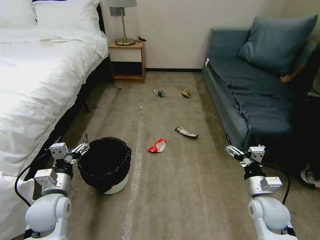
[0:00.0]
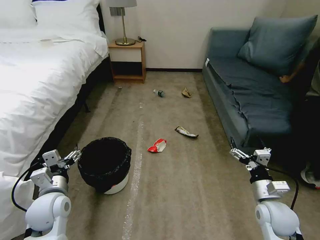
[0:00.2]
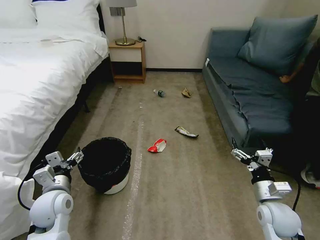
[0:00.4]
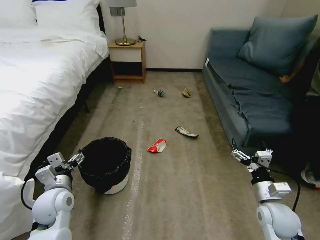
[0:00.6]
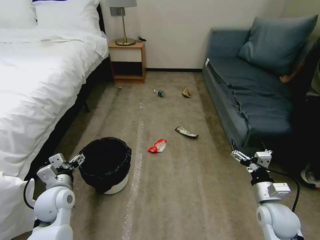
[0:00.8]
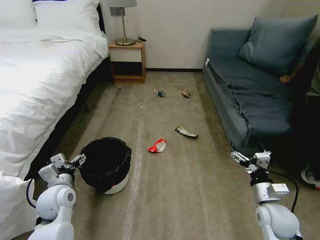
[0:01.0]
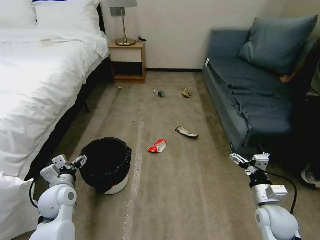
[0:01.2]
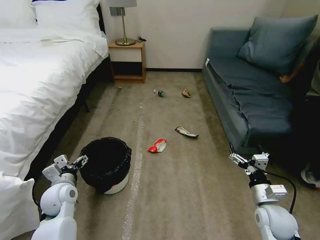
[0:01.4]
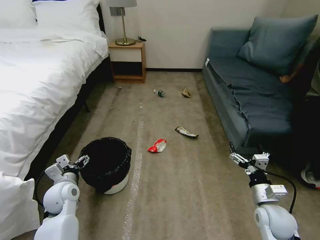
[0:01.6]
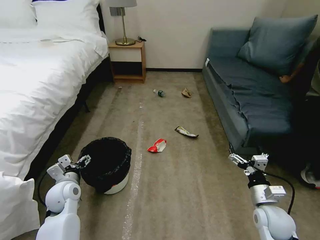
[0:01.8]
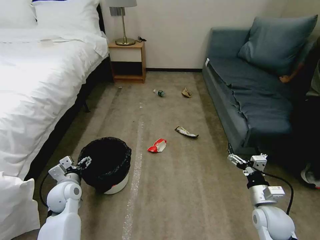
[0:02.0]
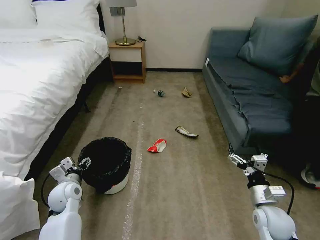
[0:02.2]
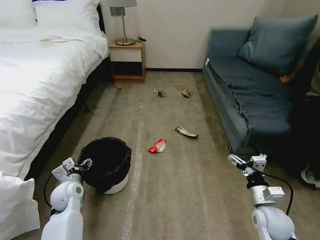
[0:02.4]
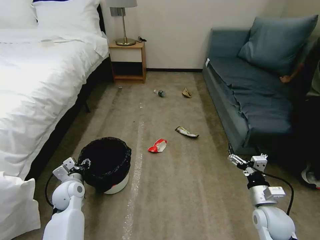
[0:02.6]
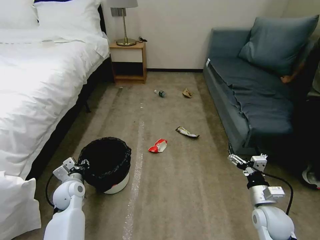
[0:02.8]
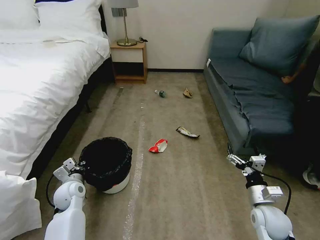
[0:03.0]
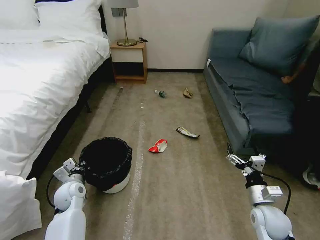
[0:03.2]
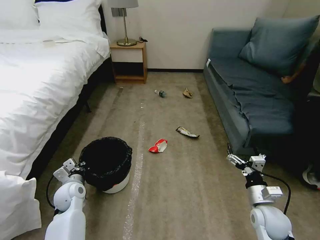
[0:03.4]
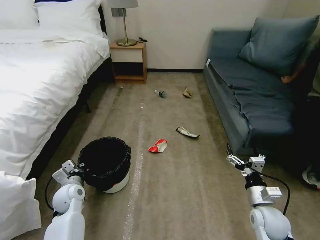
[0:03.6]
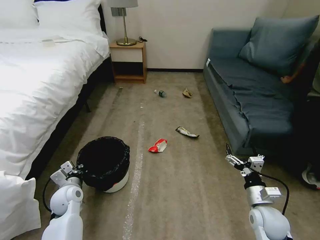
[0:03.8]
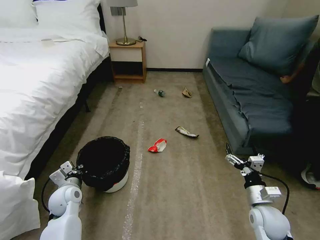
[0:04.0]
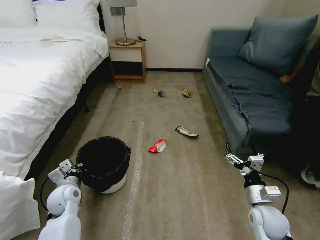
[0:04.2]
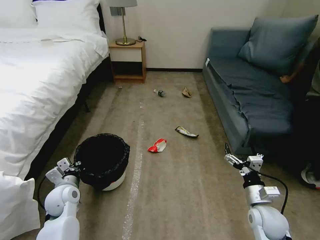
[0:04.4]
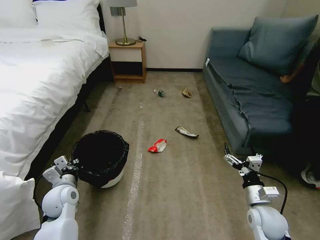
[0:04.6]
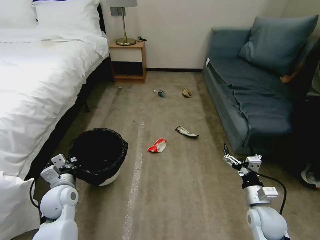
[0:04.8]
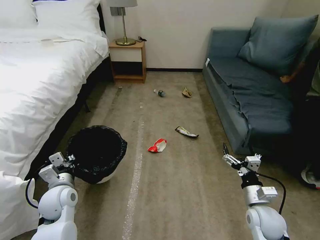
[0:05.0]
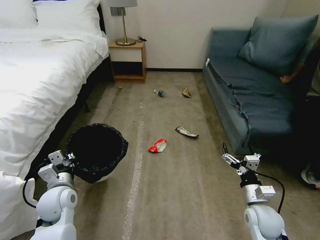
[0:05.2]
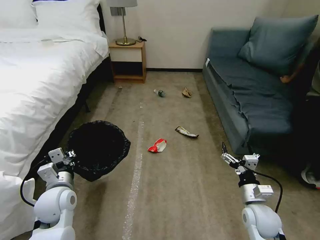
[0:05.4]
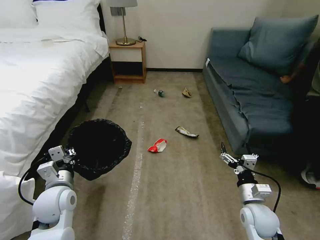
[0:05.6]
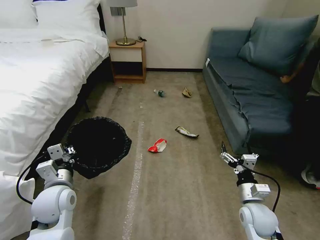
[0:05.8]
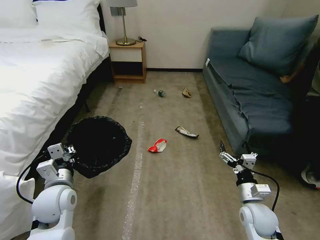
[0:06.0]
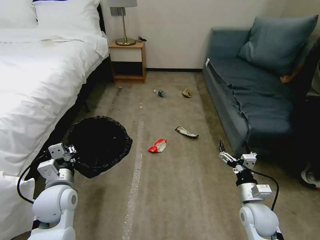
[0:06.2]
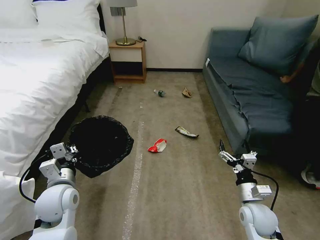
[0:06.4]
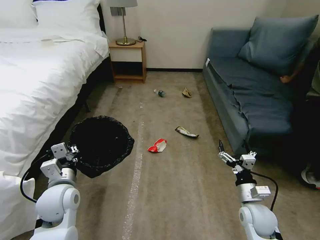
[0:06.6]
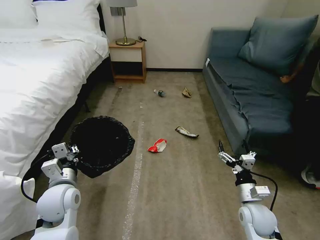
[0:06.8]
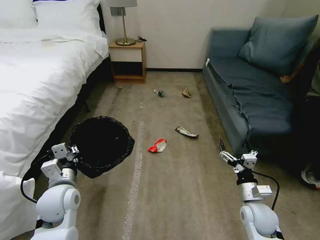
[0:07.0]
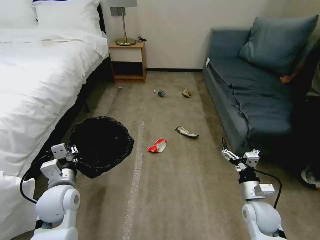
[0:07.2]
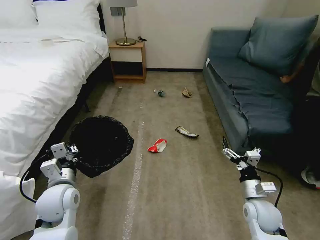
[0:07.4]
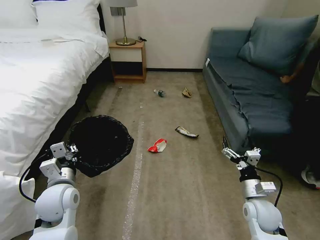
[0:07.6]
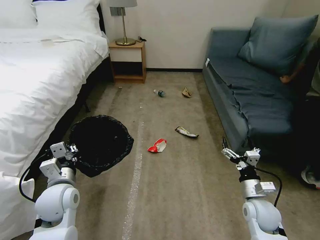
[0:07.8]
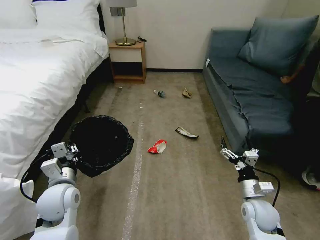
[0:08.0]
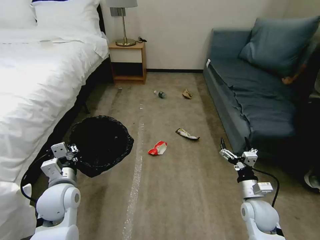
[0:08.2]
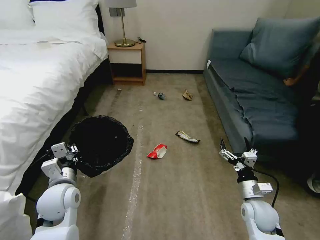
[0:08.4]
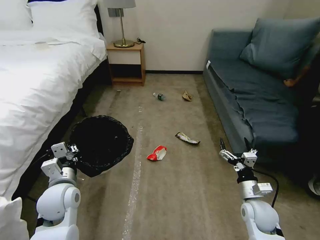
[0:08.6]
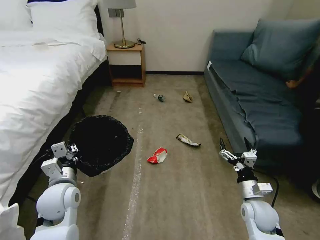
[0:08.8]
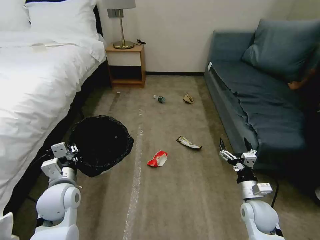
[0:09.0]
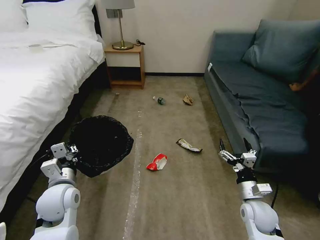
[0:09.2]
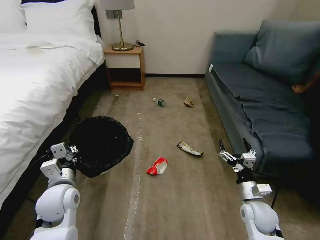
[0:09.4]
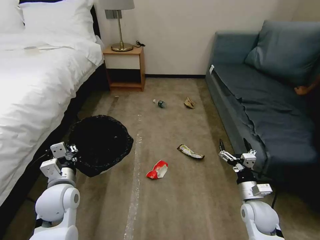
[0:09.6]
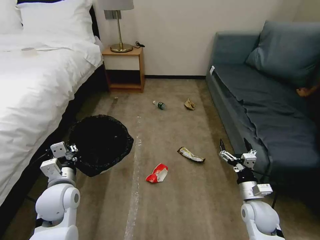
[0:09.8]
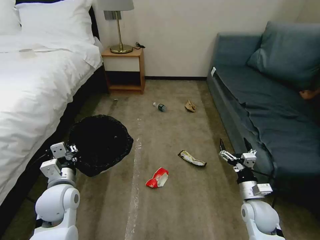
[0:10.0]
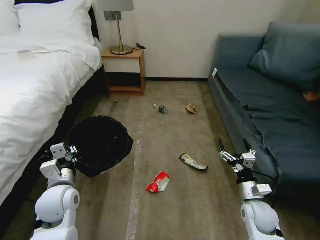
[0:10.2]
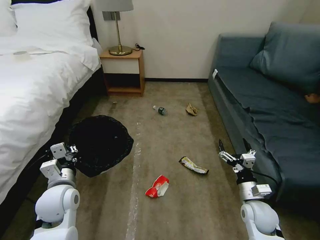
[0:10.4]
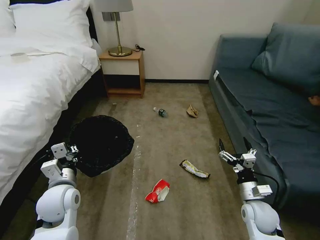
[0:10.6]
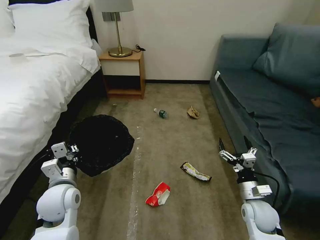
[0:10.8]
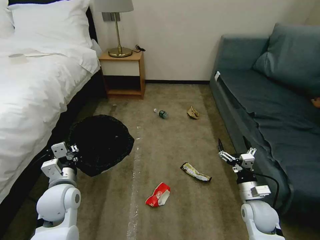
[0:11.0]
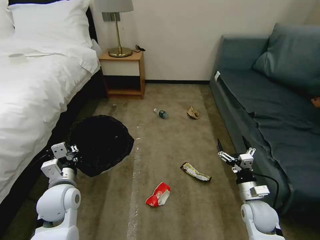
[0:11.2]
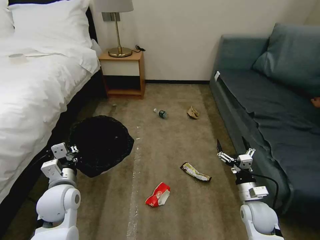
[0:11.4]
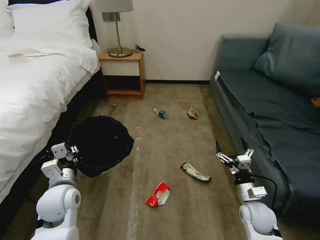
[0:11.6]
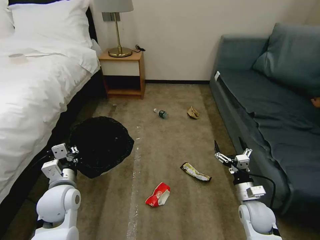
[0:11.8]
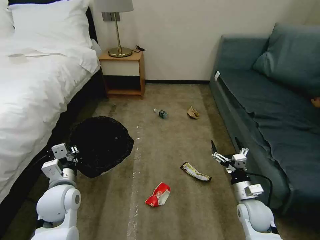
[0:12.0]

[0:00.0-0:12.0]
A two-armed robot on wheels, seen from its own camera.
Task of the whole recording: Pick up the trash bin, then pick up the garbage on the floor and place it into the trash bin.
0:01.6 to 0:03.0: The left gripper changes place by about 5 cm, and closes its fingers.
0:03.0 to 0:04.4: There are only small adjustments of the grippers.
0:04.4 to 0:06.0: The left gripper is displaced upward by some 10 cm.
0:06.0 to 0:07.6: The grippers stay close to where they were, moving slightly.
0:07.6 to 0:09.0: Both grippers stay put.
0:10.4 to 0:12.0: The grippers move only a little.

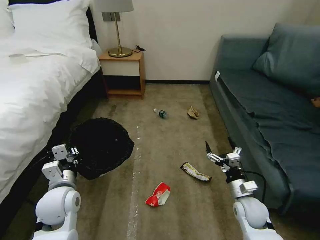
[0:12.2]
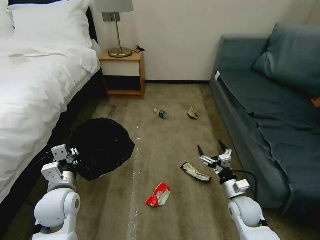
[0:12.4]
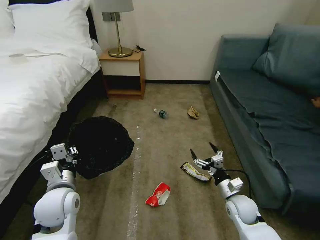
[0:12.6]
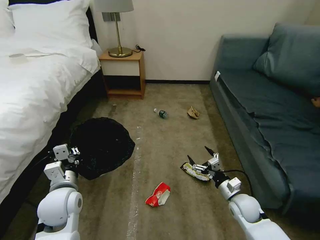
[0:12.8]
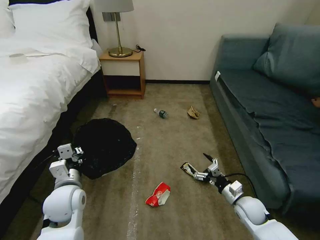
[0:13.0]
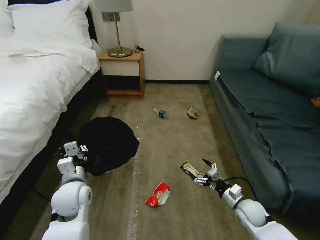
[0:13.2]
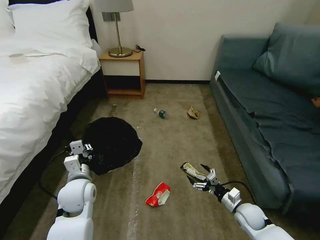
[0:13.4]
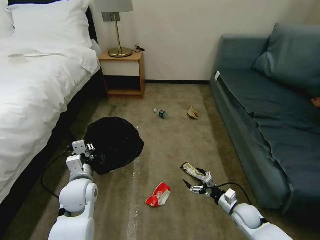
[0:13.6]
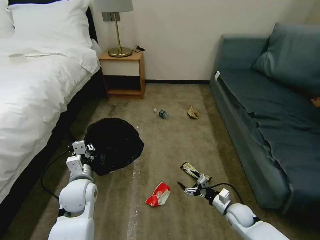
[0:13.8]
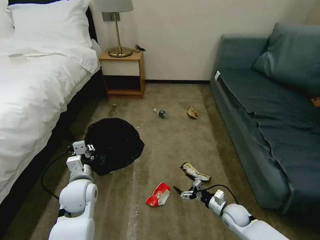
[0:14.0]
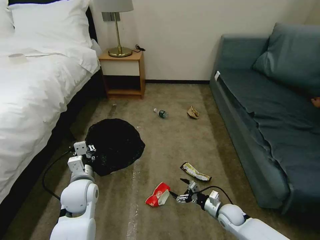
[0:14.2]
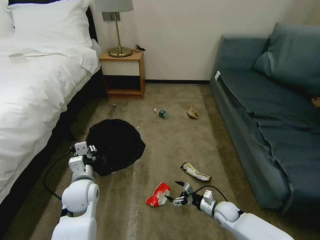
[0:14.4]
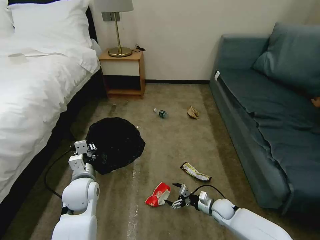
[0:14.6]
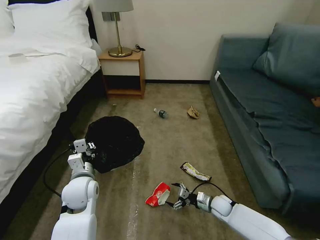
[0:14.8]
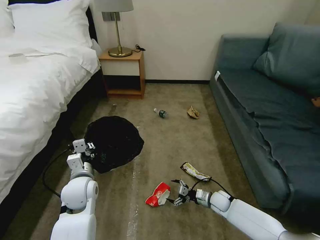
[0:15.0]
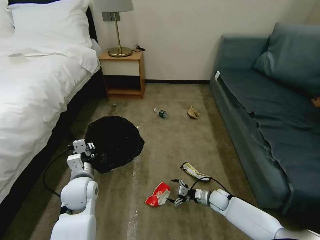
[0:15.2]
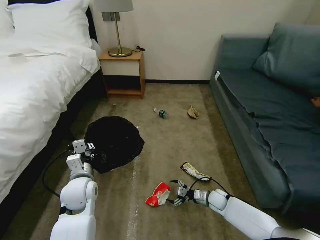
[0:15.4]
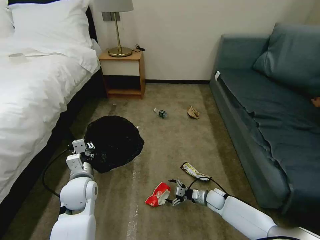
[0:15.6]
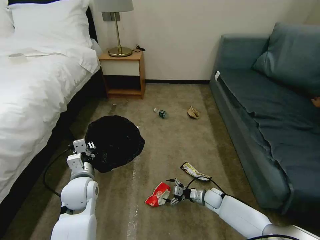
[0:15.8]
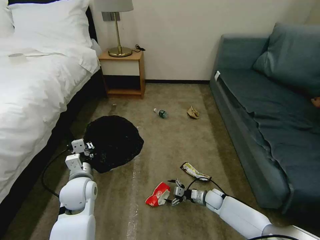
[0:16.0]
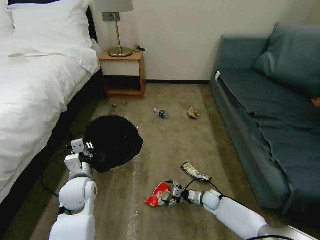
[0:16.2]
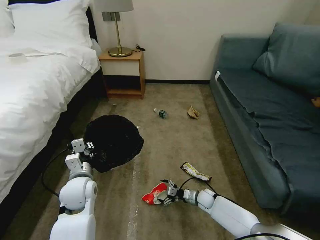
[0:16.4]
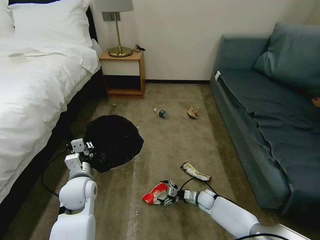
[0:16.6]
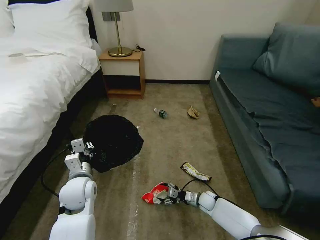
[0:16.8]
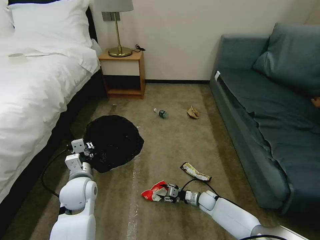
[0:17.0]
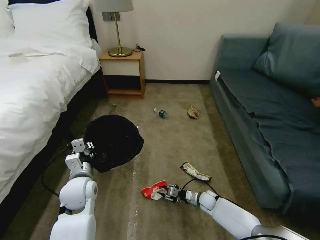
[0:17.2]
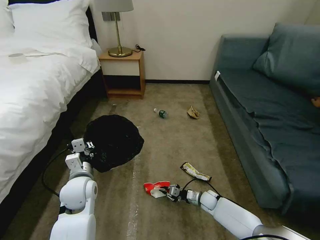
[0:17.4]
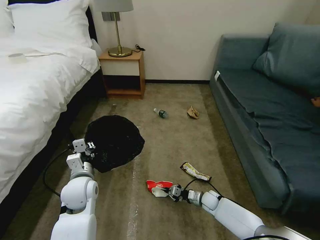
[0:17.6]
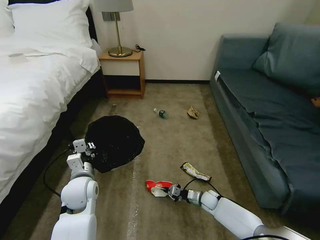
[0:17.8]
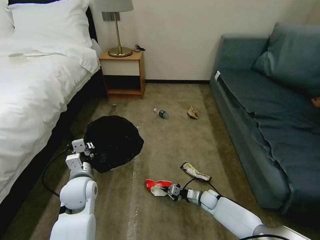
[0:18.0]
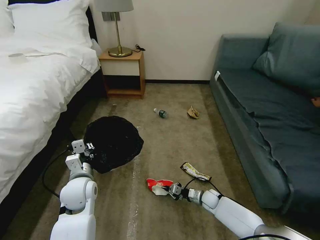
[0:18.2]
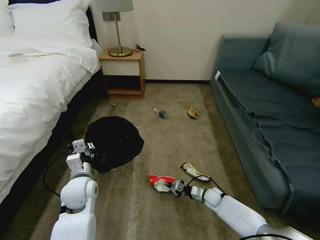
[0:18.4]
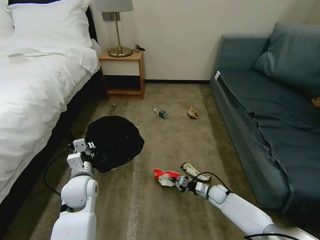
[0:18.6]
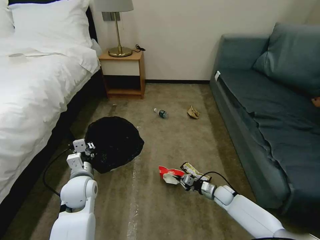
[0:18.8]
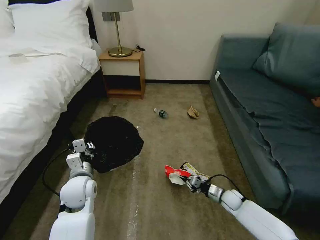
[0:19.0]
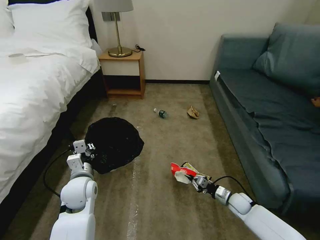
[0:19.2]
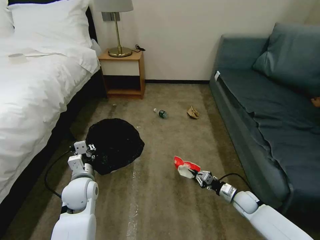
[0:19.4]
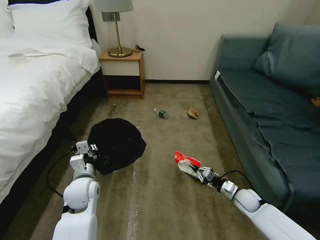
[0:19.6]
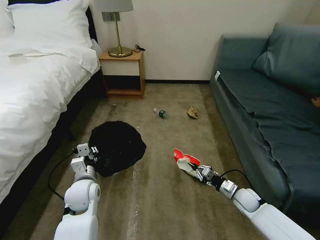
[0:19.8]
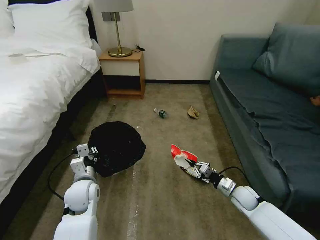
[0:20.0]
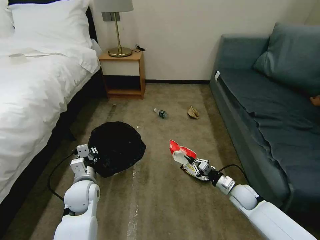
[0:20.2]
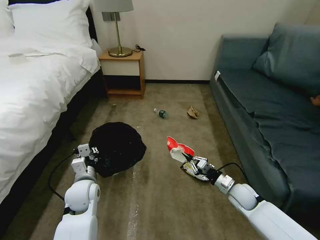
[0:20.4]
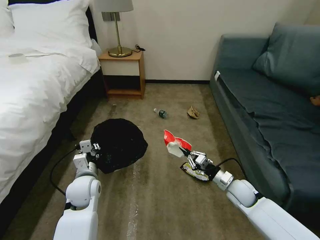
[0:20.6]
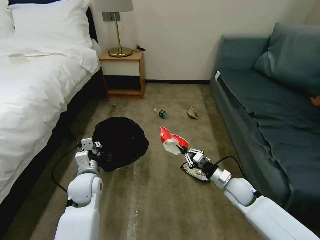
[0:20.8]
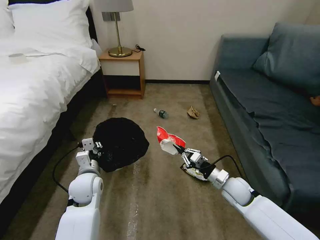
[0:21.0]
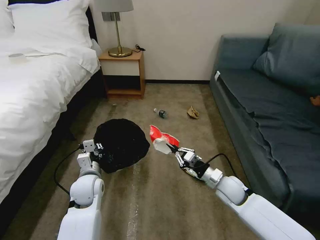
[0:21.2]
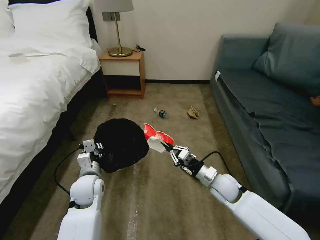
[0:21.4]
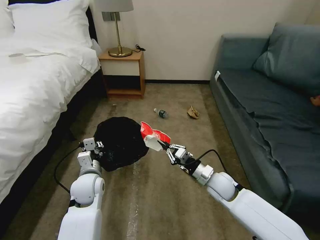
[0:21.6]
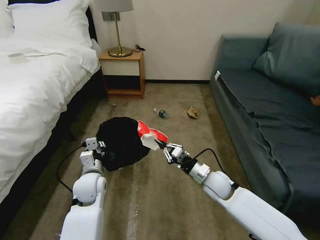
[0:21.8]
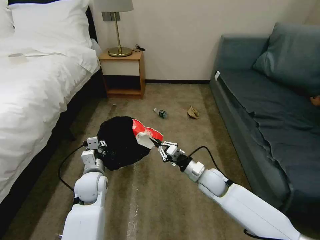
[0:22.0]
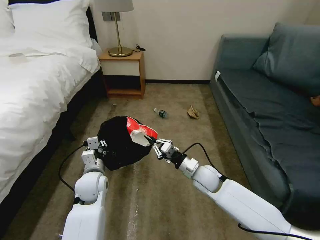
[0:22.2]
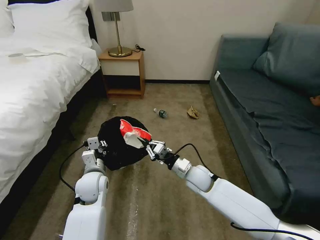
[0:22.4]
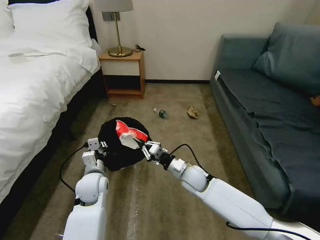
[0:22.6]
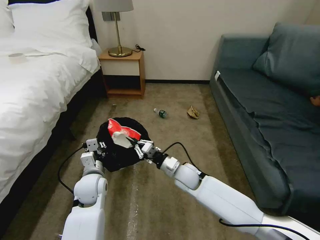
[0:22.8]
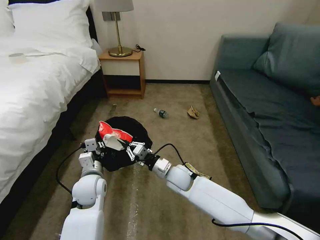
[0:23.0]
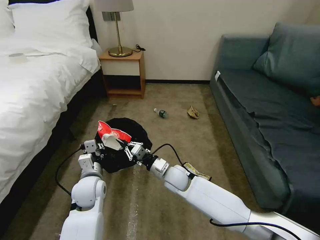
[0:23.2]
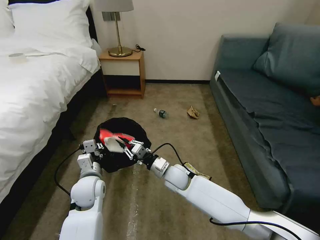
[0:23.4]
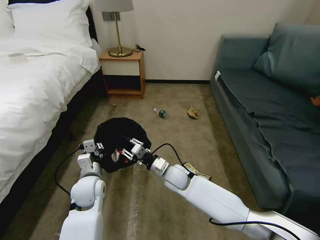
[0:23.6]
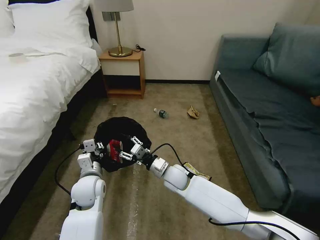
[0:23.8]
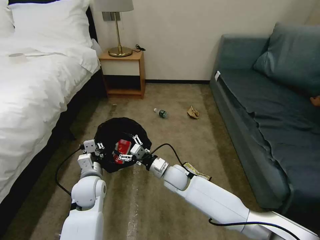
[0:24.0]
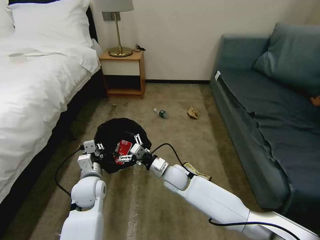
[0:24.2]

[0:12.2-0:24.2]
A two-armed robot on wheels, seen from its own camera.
Task of the whole recording: Pick up the trash bin, then pick up the garbage on the floor and place it into the trash bin.
0:12.2 to 0:13.8: The right gripper travels downward by roughly 10 cm. The left gripper changes place by approximately 5 cm.
0:13.8 to 0:15.2: The right gripper moves forward, roughly 10 cm.
0:15.2 to 0:16.6: The right gripper changes place by some 5 cm.
0:16.6 to 0:18.2: The right gripper closes.
0:18.2 to 0:19.8: The right gripper heads upward and to the right, covering some 15 cm.
0:19.8 to 0:21.2: The right gripper shifts about 15 cm to the left and upward.
0:21.2 to 0:22.6: The right gripper is displaced to the left by about 10 cm.
0:22.6 to 0:24.2: The right gripper moves to the left, approximately 5 cm, and opens.
